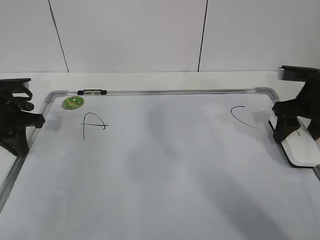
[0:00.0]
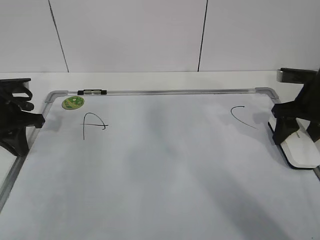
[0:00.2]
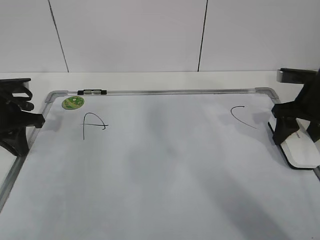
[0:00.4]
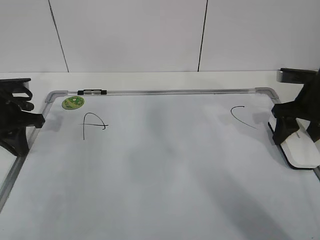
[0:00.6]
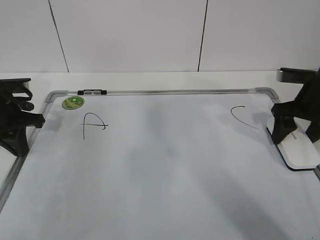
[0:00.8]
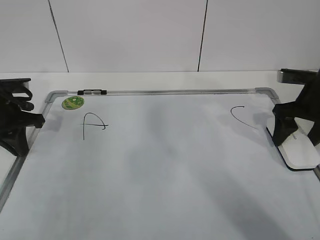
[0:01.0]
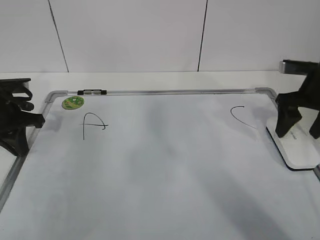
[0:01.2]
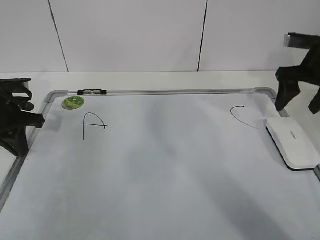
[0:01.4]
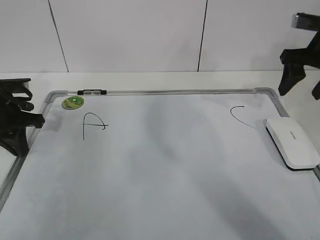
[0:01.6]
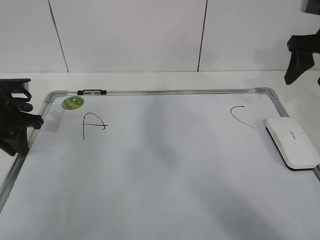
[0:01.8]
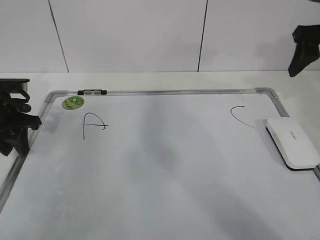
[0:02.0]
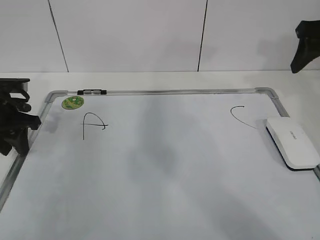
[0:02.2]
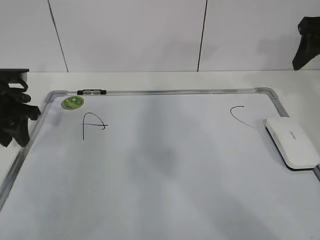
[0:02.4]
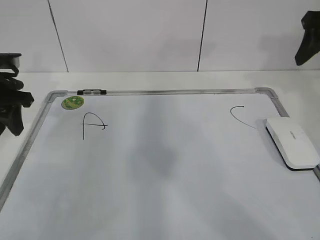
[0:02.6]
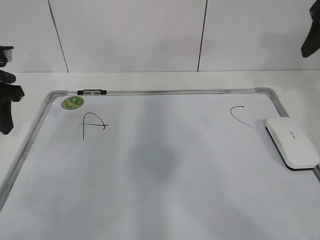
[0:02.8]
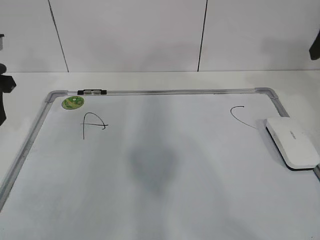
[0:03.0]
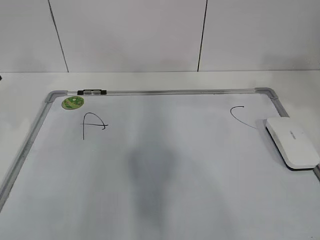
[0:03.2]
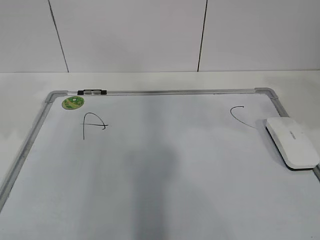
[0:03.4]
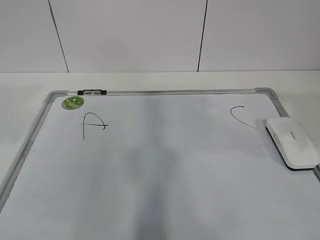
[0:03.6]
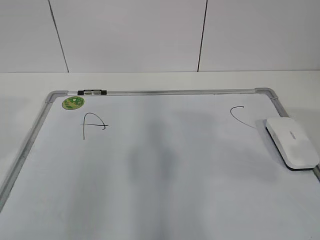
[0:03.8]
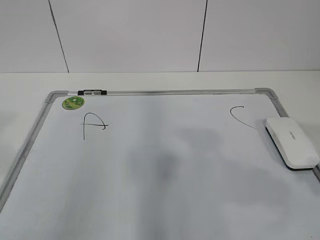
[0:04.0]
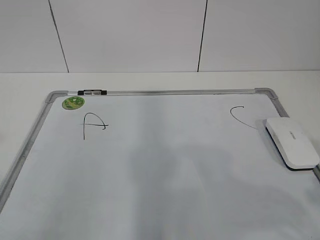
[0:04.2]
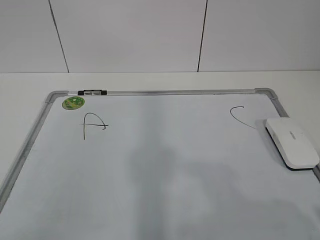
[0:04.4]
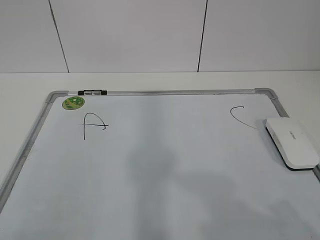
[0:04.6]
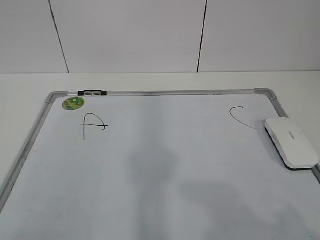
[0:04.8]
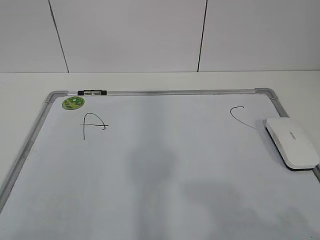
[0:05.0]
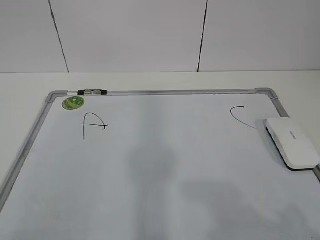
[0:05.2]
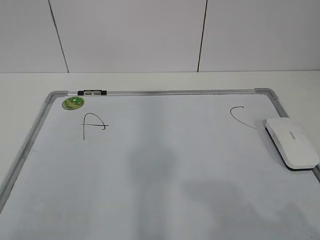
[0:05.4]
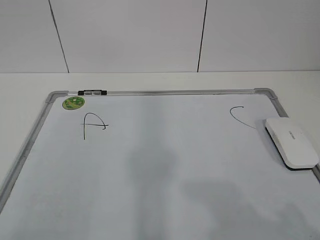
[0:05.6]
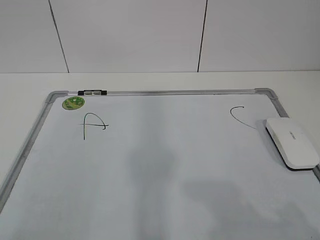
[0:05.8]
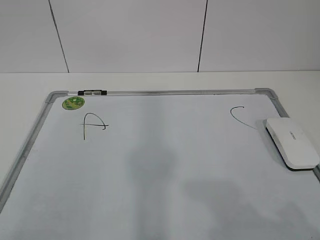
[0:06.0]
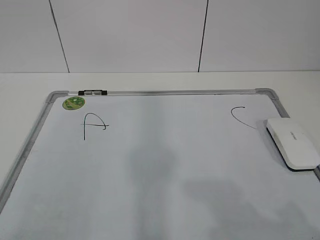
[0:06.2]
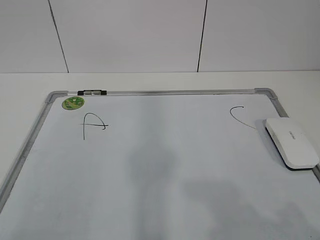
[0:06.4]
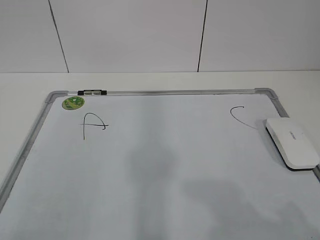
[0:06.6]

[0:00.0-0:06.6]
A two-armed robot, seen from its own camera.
Task of the whole recording: pick up the eraser on the blackboard and erase the letter "B".
0:00.0 to 0:01.6: The right gripper moves upward, roughly 10 cm, and opens.
0:01.6 to 0:03.2: The right gripper moves backward and upward, approximately 15 cm. The left gripper heads upward, covering roughly 15 cm, and opens its fingers.
0:03.2 to 0:05.0: The grippers both shift backward by about 30 cm.
0:05.0 to 0:06.6: Neither gripper changes place.
